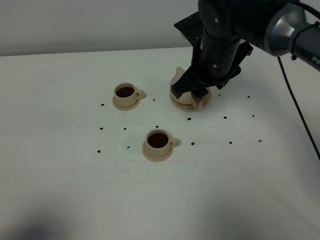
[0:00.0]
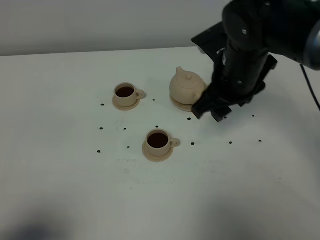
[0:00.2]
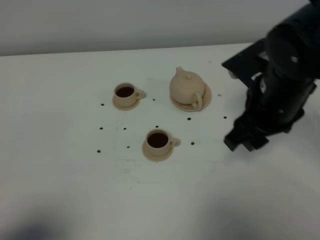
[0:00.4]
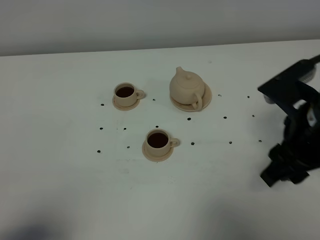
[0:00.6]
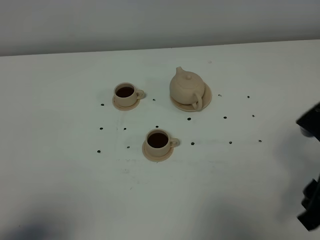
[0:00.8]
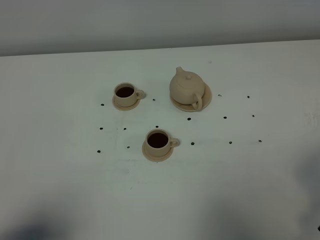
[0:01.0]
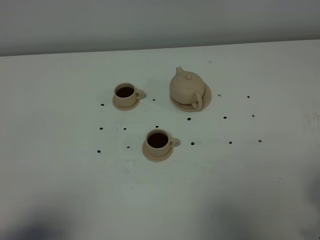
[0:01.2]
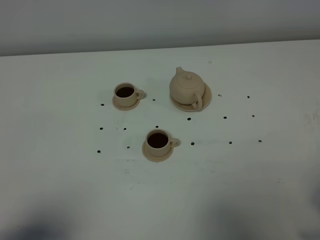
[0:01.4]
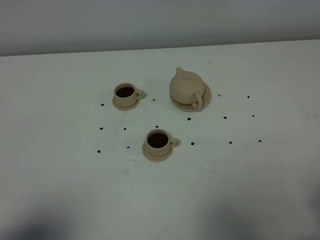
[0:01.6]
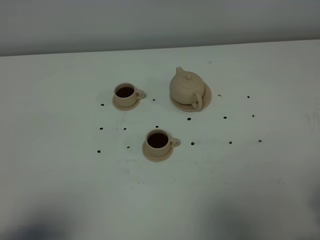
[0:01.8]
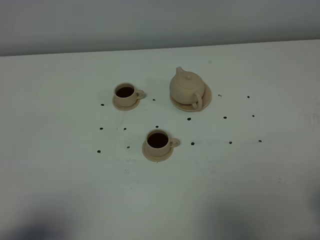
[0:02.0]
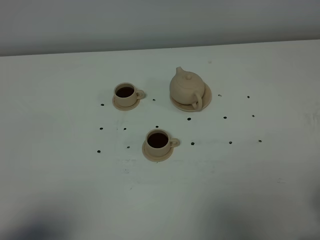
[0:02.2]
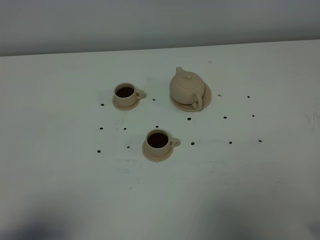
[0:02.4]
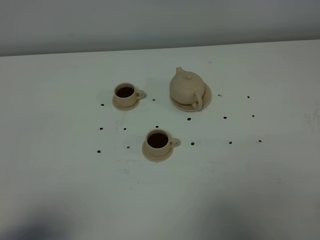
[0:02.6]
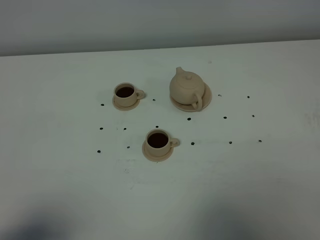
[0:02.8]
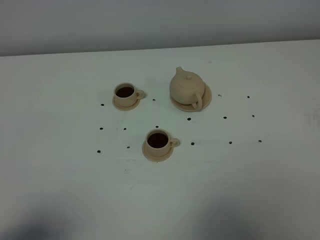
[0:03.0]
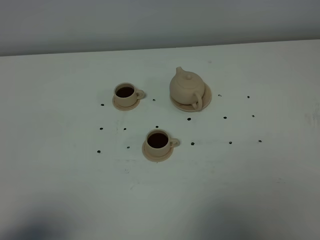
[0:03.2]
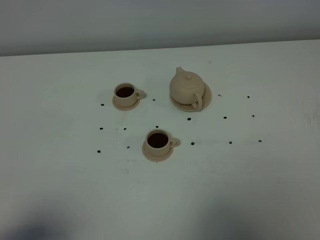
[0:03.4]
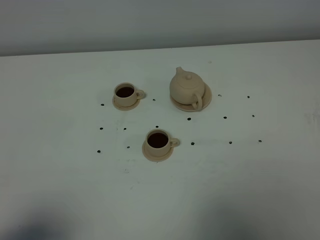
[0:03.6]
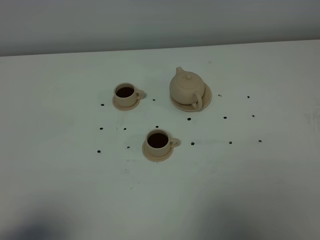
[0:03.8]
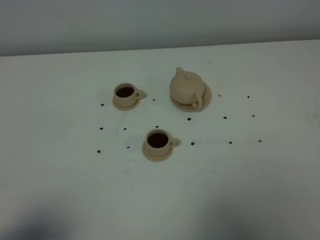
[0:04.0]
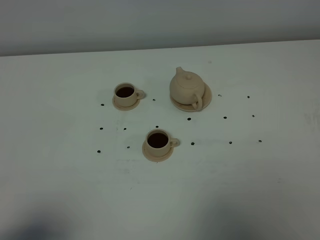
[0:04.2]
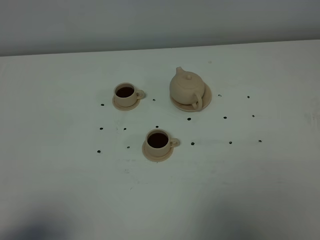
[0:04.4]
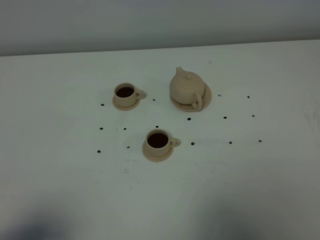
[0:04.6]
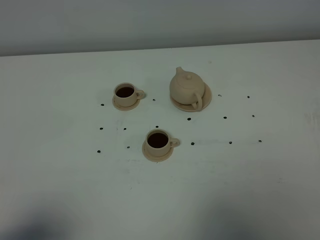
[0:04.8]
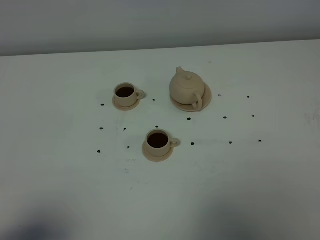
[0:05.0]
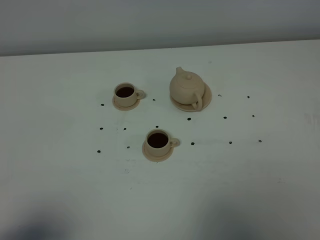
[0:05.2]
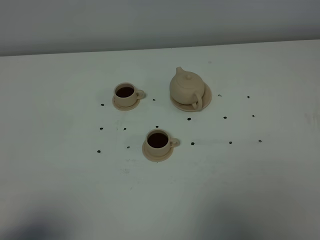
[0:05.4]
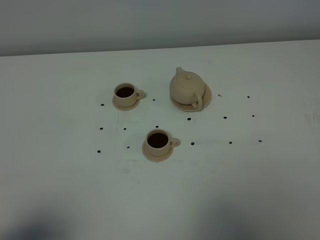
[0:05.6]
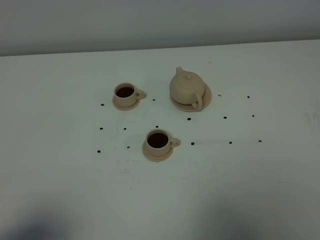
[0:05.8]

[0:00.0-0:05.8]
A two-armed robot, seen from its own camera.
Task of the whole recording: grasp the brown teapot and pour the tea into the two brown teacups one by one, put the brown teapot back in its original place.
0:00.0 to 0:01.4: The right gripper heads backward and to the right, covering approximately 35 cm.
0:04.4 to 0:05.8: Both grippers stay about where they are.
